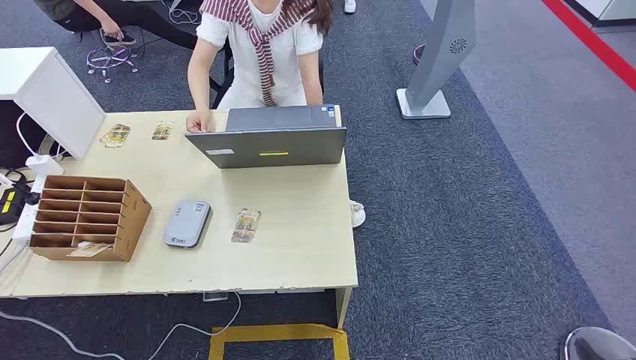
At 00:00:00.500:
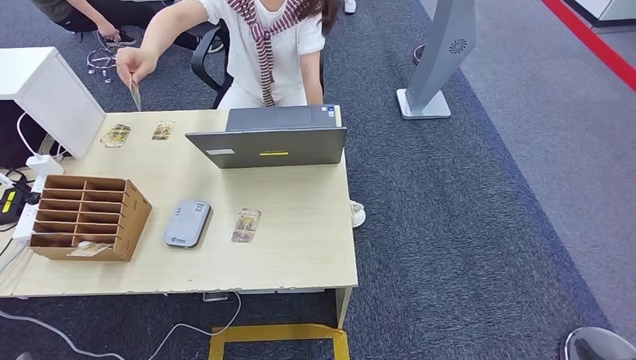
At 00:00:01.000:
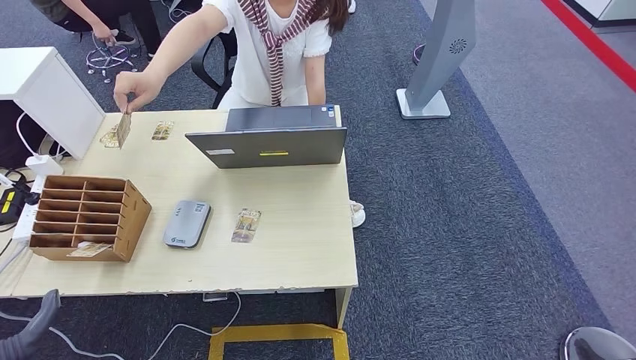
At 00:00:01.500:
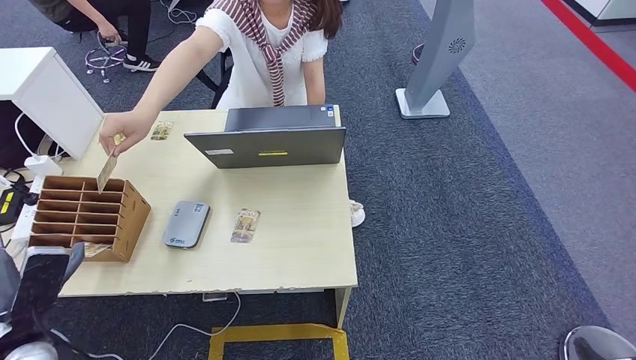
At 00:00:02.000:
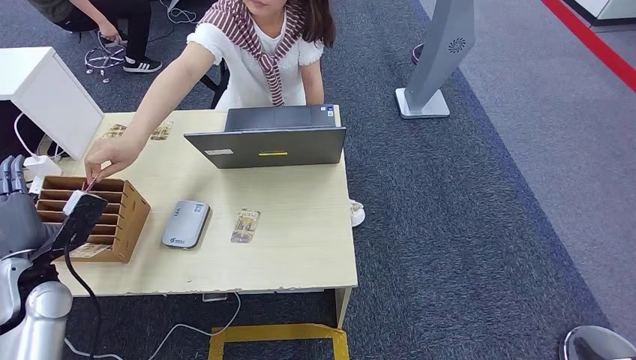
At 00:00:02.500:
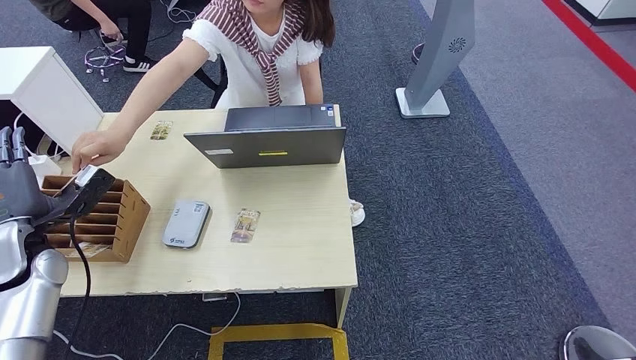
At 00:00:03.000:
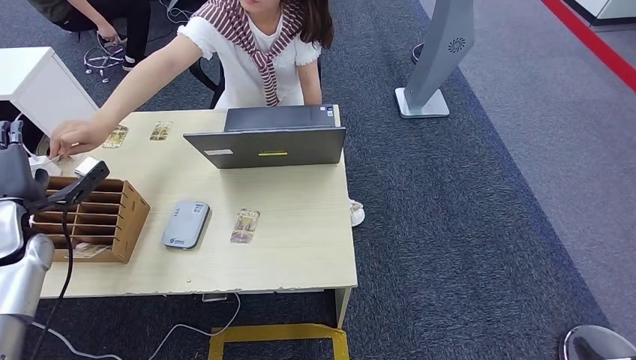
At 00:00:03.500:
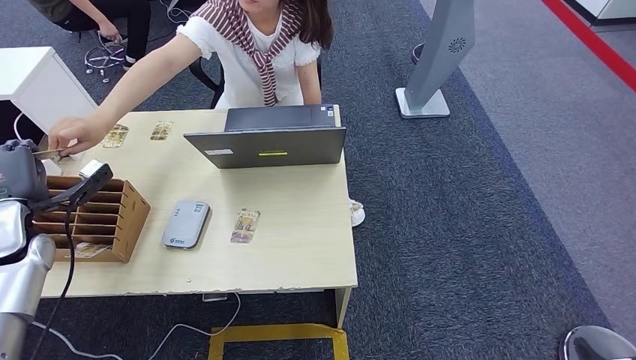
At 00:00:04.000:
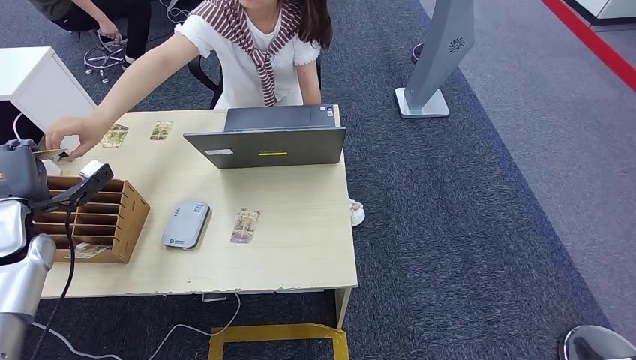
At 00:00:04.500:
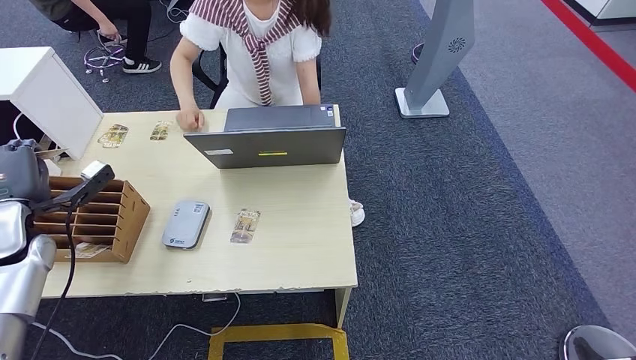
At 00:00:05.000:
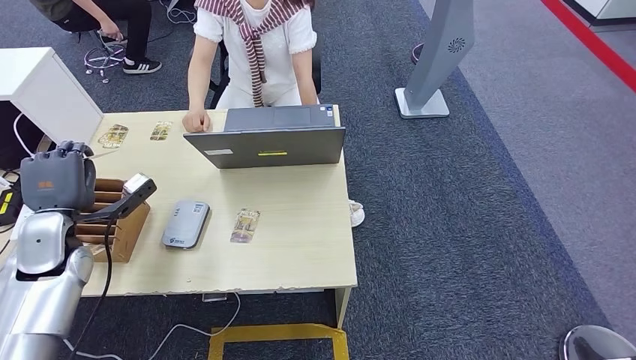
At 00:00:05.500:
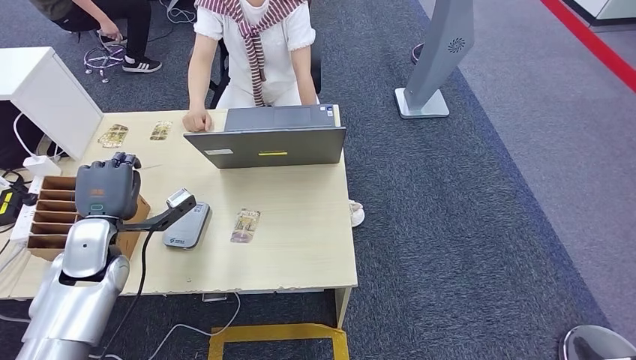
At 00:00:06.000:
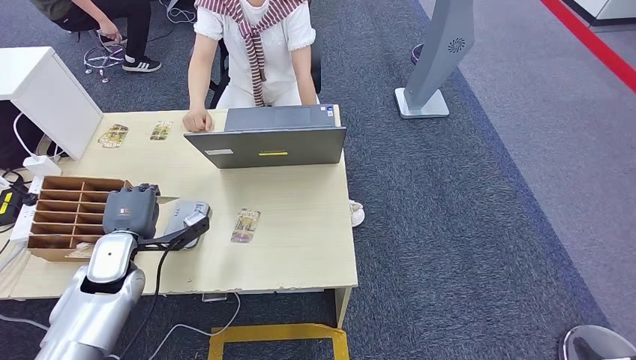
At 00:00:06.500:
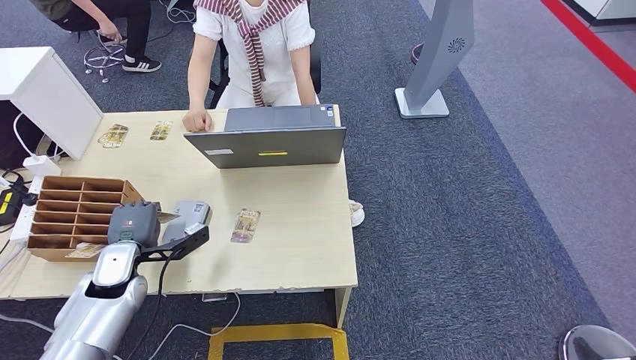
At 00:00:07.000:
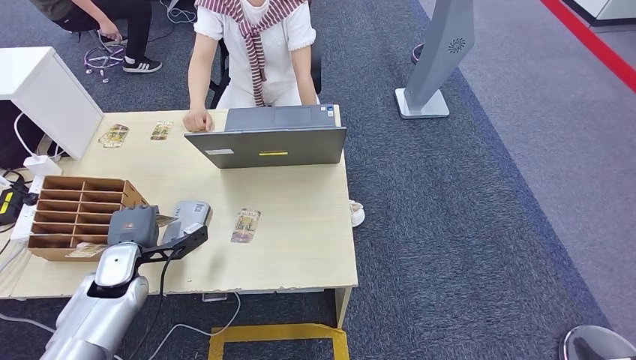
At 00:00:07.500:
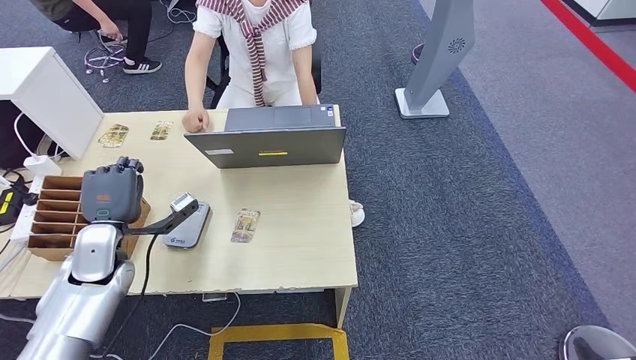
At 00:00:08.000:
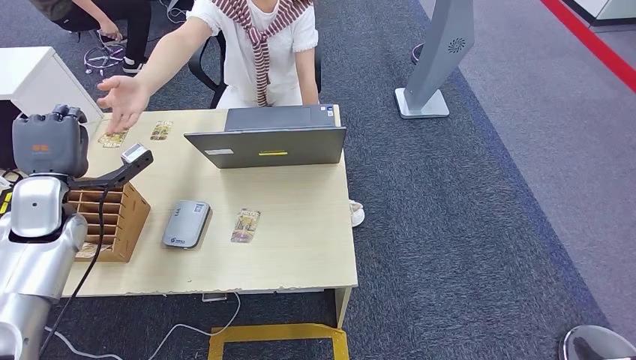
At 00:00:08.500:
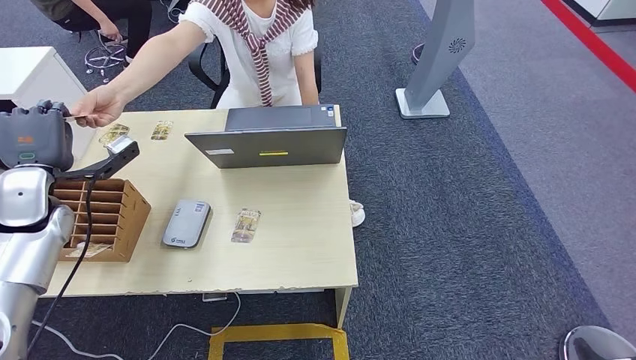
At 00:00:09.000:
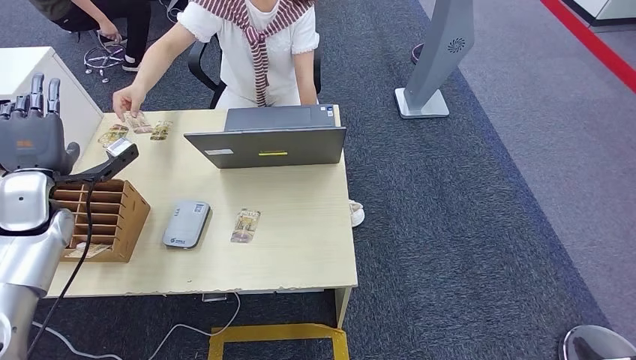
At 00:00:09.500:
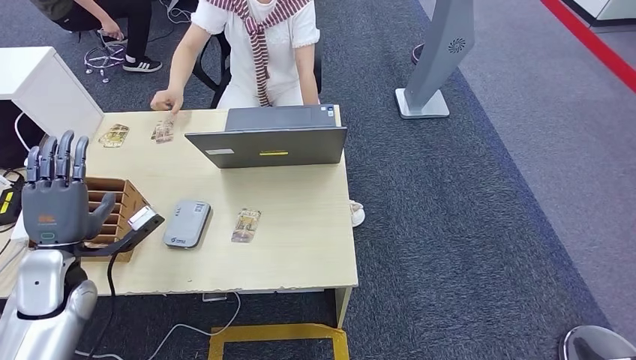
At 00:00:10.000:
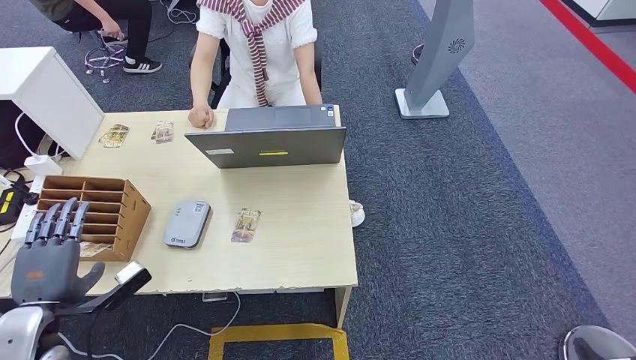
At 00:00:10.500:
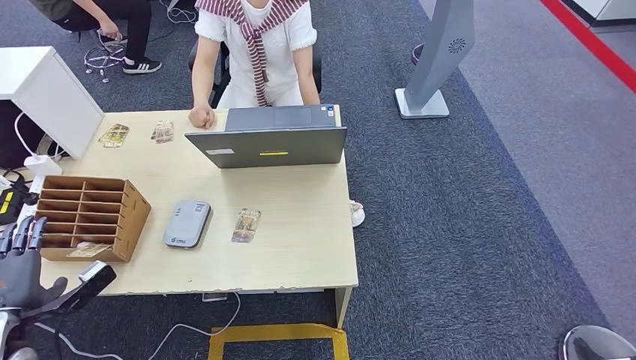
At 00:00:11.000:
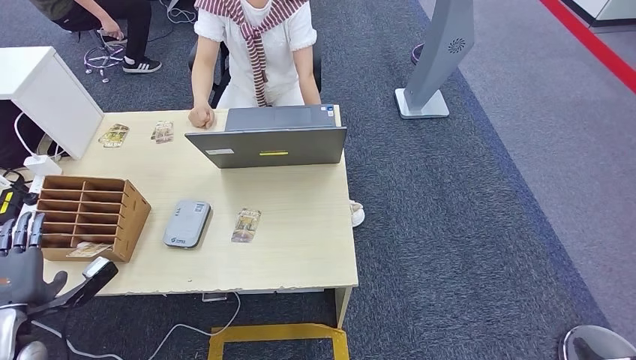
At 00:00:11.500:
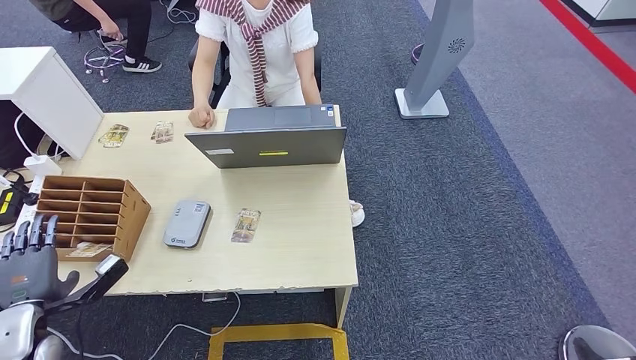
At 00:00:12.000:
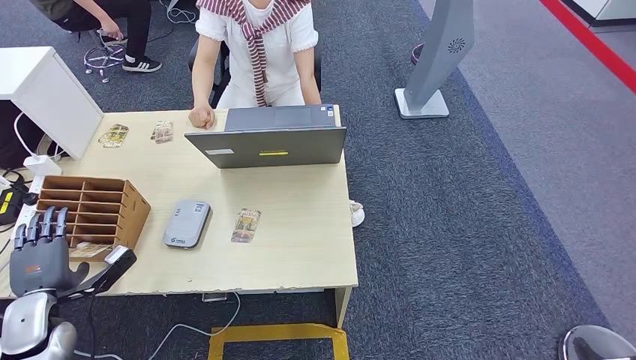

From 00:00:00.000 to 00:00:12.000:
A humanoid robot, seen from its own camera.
Step, from 00:00:00.000 to 00:00:04.000: Take the ID card from the person's hand.
Step, from 00:00:04.500 to 00:00:06.500: Place the ID card on the card reader.
Step, from 00:00:07.000 to 00:00:08.500: Hand the ID card to the person.
From 00:00:02.000 to 00:00:04.000: The left hand travels forward by roughly 5 cm.
From 00:00:06.000 to 00:00:08.000: The left hand is displaced upward, to the left and forward by roughly 15 cm.
From 00:00:08.000 to 00:00:10.000: The left hand heads backward and downward, covering about 20 cm.
From 00:00:10.000 to 00:00:12.000: The left hand ends up approximately 10 cm from where it was.

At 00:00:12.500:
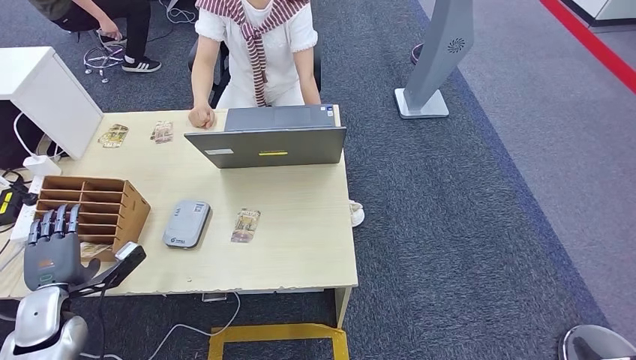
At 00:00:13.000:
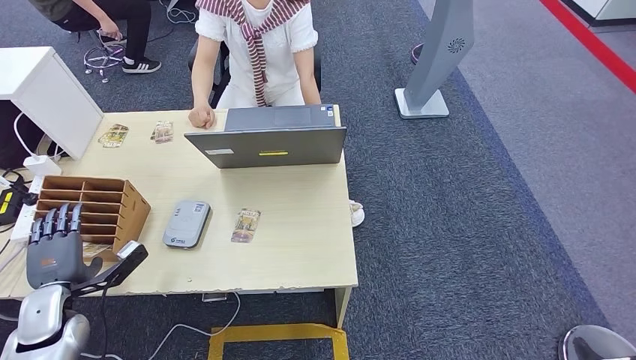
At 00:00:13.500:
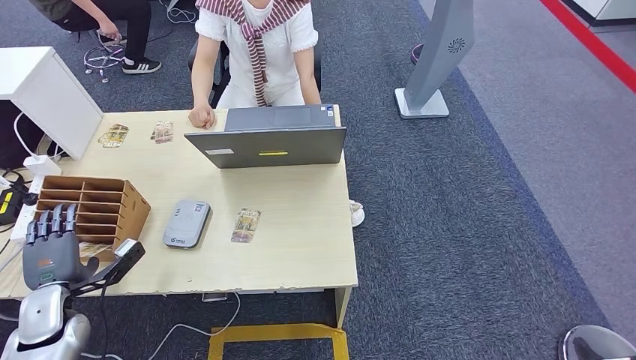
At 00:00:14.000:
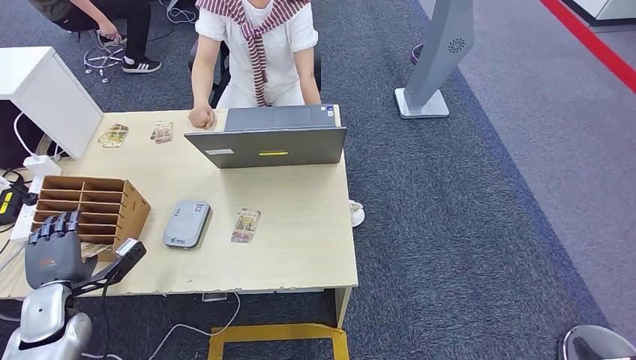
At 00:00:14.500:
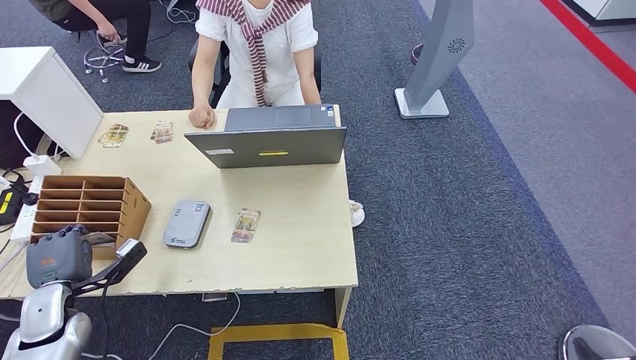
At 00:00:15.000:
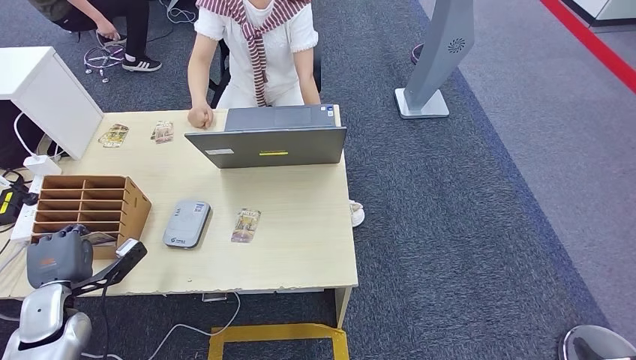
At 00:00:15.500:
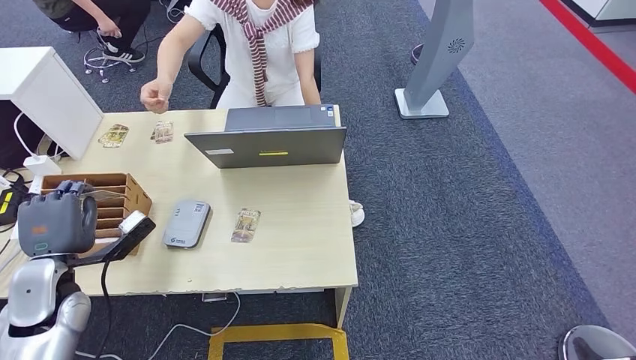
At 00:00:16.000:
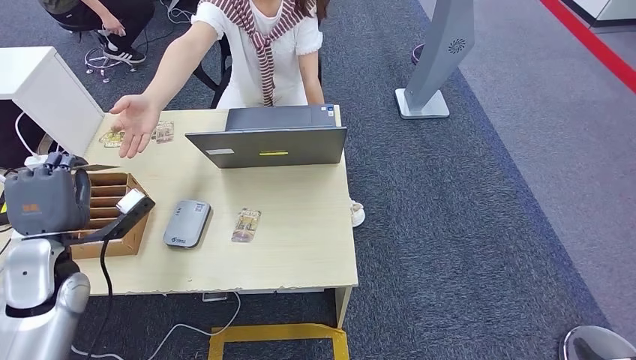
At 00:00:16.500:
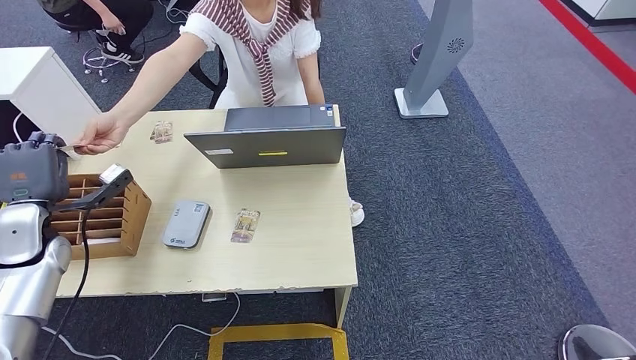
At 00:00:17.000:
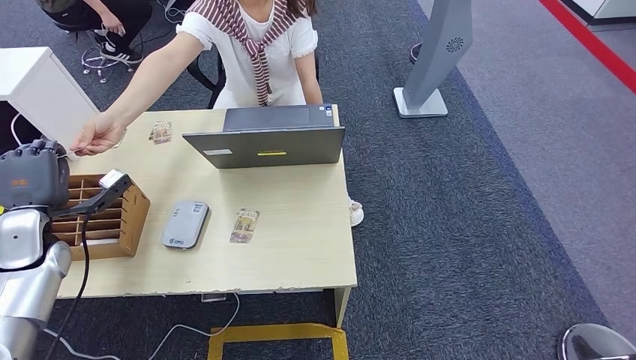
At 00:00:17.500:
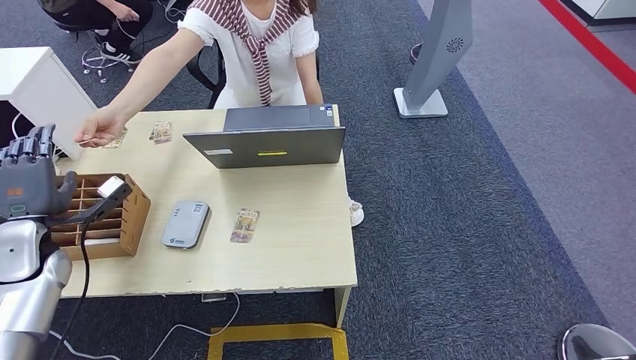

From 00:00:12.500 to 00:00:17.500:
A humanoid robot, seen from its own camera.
Step, from 00:00:12.500 to 00:00:15.500: Pick up the room key from the key card box.
Step, from 00:00:16.000 to 00:00:17.500: Hand the room key to the person.
From 00:00:12.500 to 00:00:15.000: The two hands keep their place.
From 00:00:15.000 to 00:00:17.500: The left hand travels upward and forward by some 15 cm.
